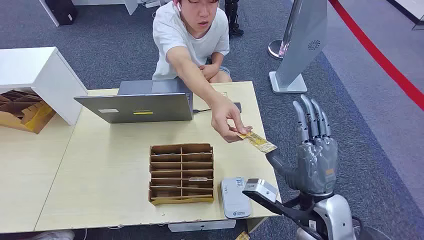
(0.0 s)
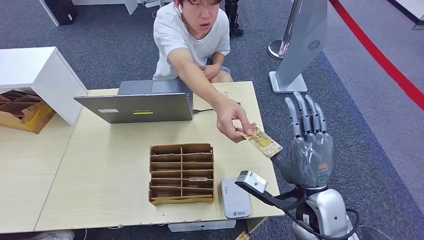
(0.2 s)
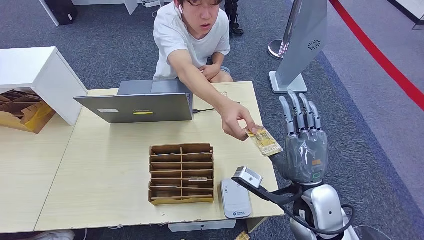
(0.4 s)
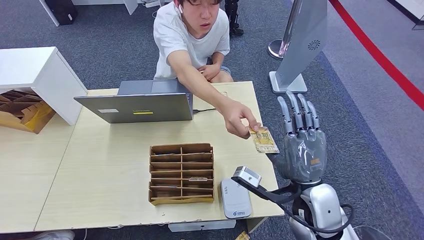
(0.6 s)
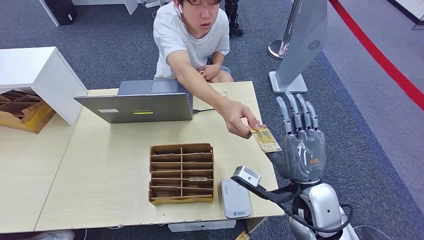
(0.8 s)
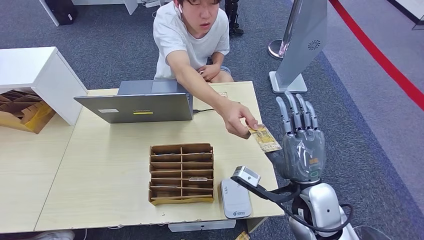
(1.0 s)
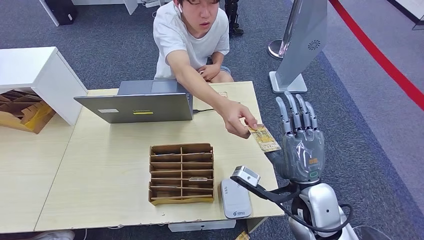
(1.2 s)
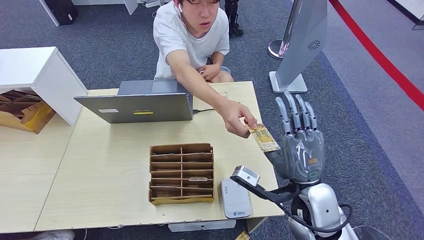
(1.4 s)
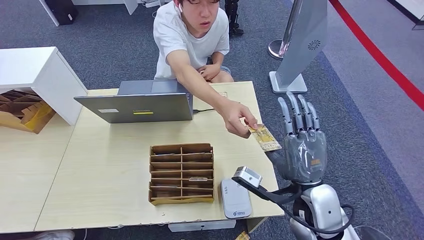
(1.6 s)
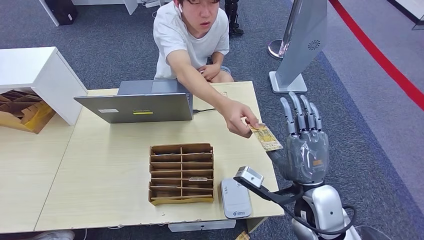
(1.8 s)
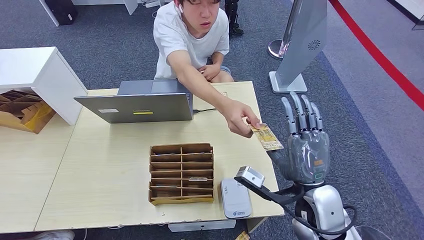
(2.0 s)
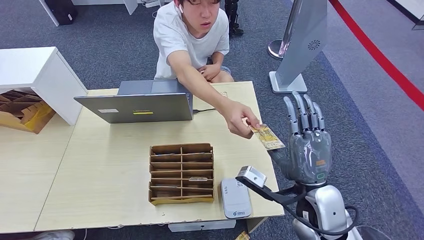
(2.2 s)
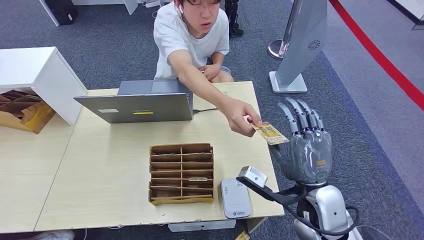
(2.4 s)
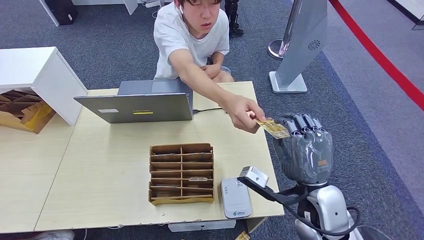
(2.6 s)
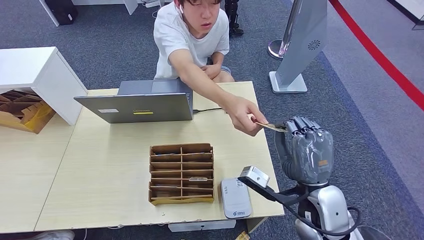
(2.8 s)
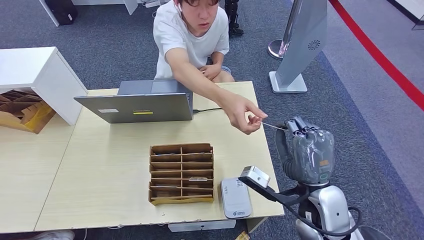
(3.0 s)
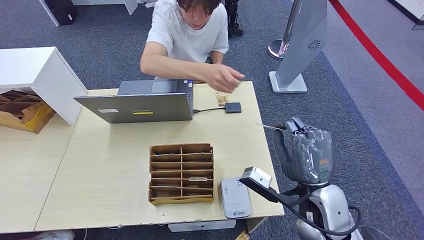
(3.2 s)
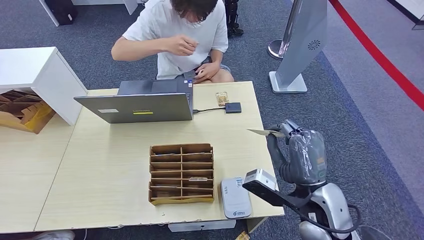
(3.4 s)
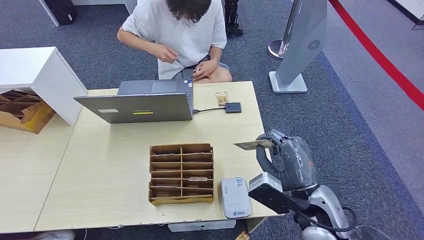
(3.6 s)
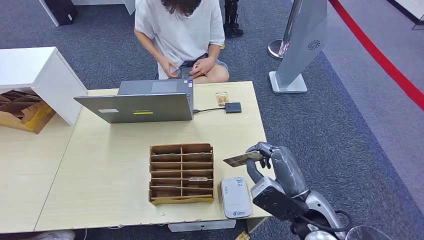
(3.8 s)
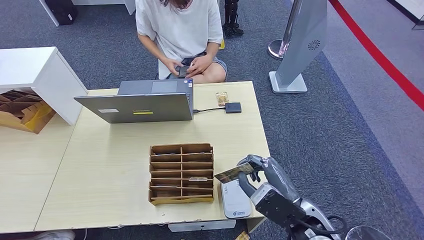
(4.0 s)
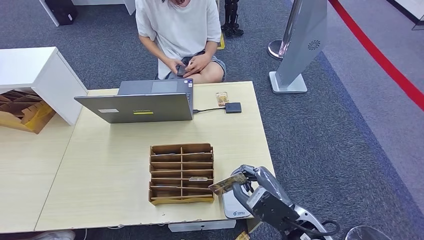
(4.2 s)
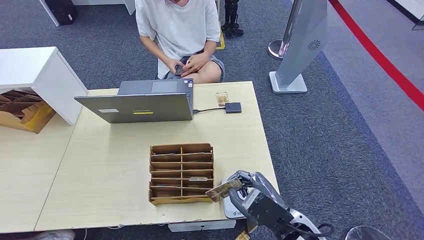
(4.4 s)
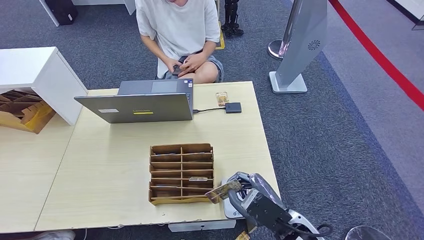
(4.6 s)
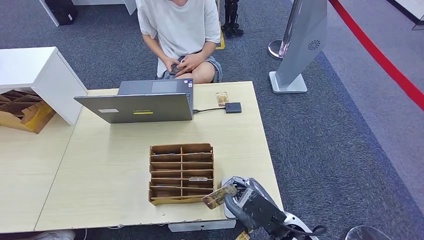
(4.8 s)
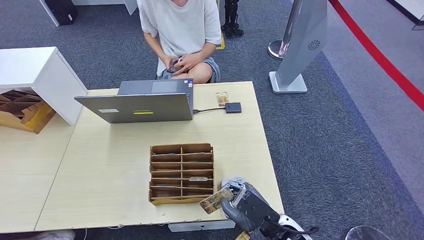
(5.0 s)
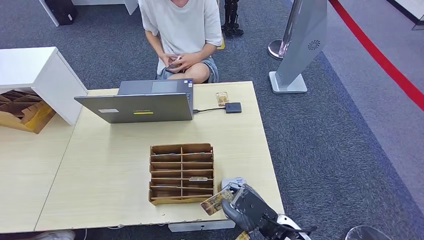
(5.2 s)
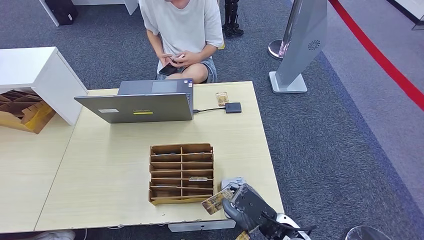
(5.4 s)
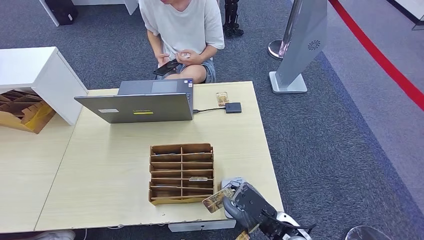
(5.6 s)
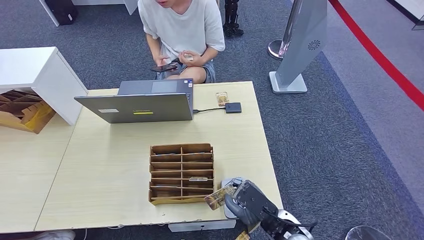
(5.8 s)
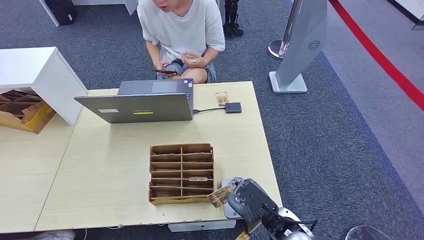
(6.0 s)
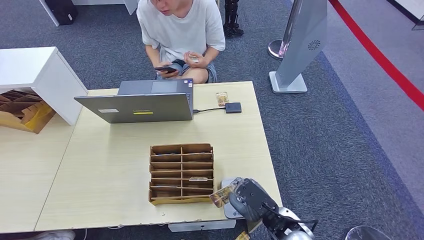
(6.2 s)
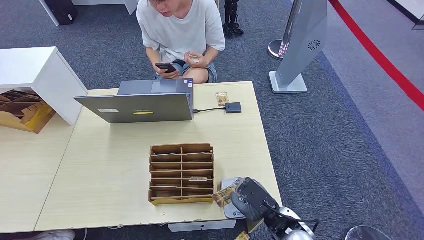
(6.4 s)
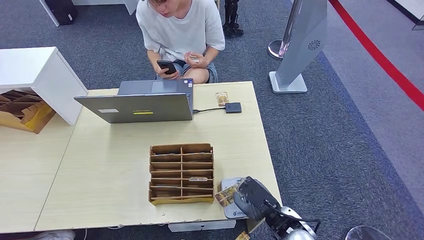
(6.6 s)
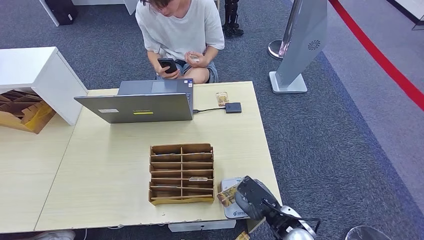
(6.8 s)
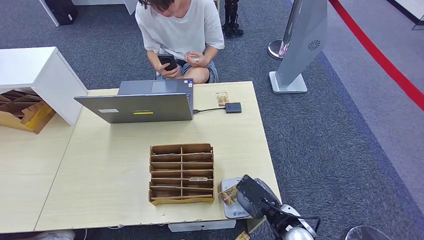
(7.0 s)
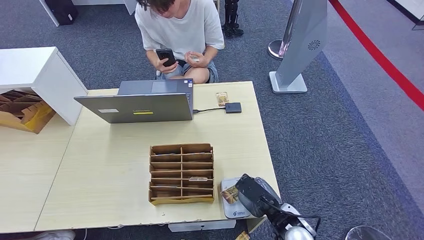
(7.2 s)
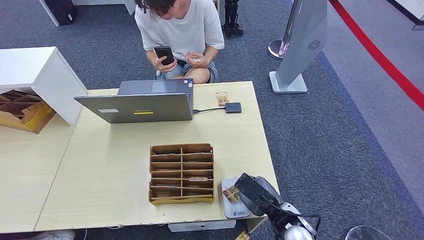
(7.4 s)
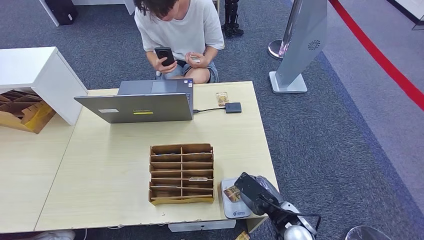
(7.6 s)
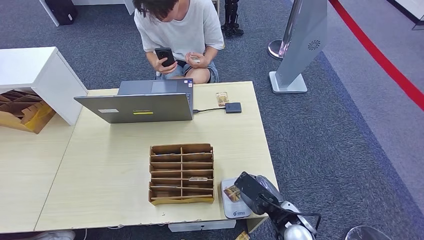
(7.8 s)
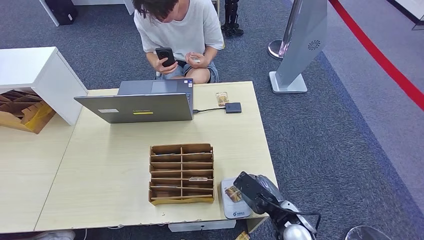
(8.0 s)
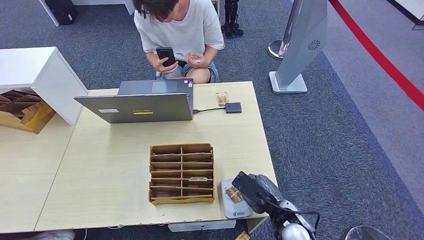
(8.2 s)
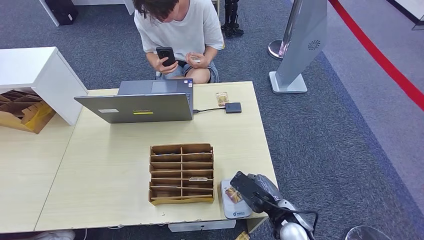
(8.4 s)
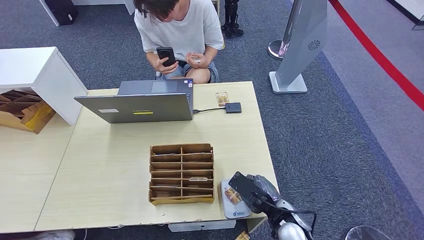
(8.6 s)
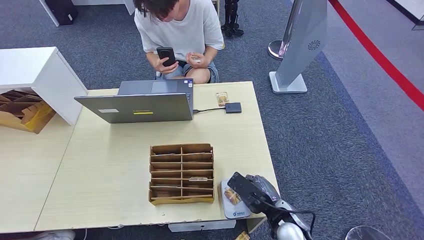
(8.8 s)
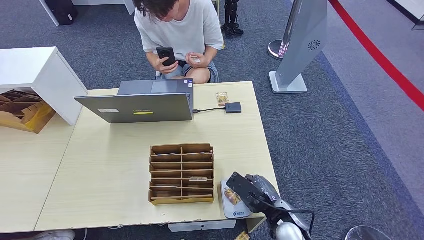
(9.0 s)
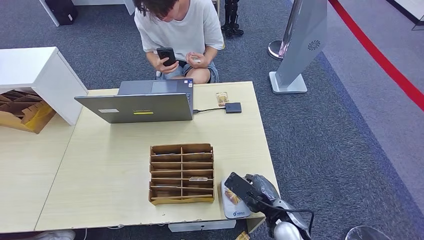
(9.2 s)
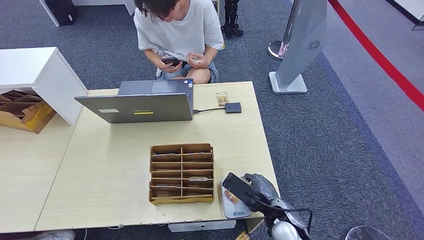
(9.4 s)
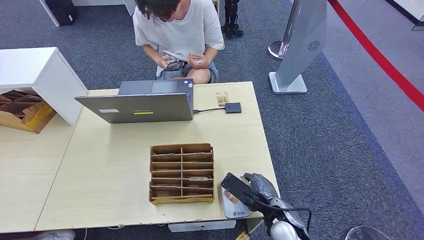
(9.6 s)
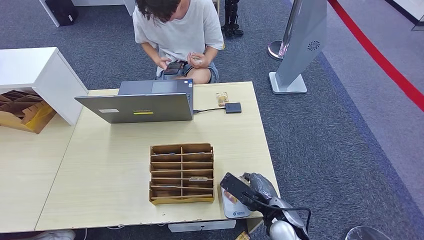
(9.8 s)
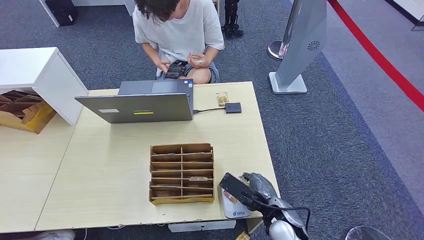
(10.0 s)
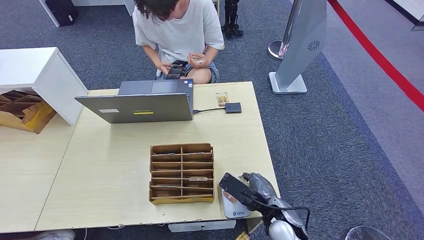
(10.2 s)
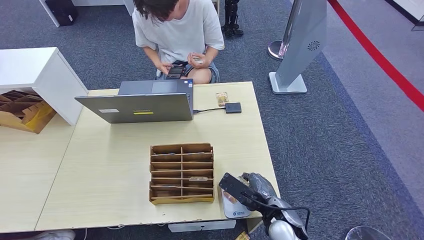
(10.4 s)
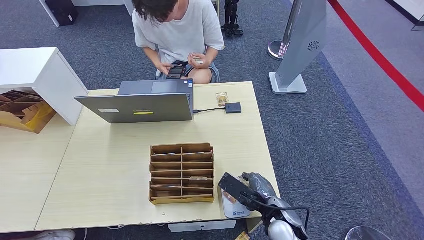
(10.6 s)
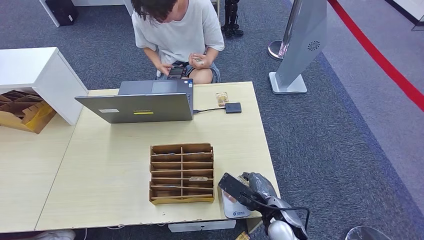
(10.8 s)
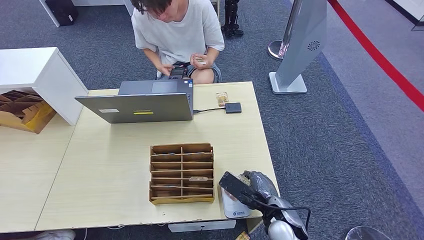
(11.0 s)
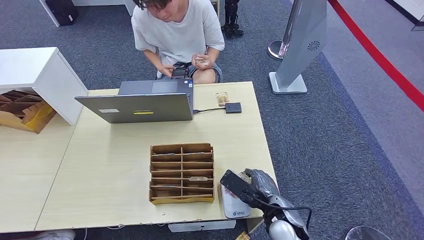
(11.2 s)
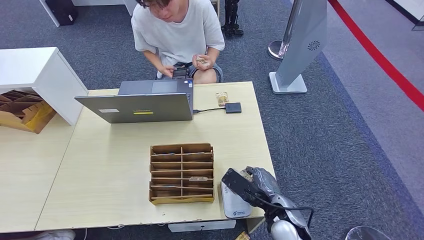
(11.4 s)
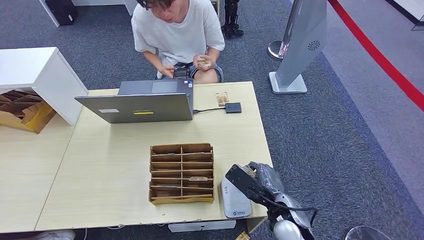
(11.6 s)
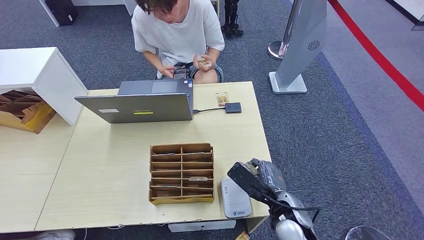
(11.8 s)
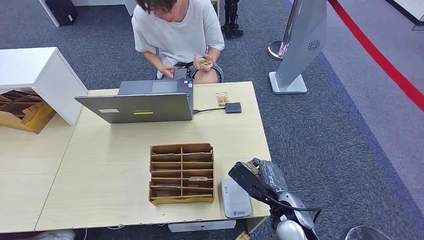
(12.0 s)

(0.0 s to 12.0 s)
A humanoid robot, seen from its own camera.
Step, 0.0 s - 3.4 s: Take the ID card from the person's hand.
Step, 3.8 s - 9.2 s: Place the ID card on the card reader.
1.6 s - 3.0 s: Neither hand changes place.
3.0 s - 4.4 s: The right hand is displaced downward by approximately 5 cm.
4.4 s - 6.0 s: The right hand travels downward by approximately 5 cm.
6.0 s - 7.6 s: The hands stay close to where they were, moving slightly.
7.6 s - 12.0 s: There are only small adjustments of the hands.

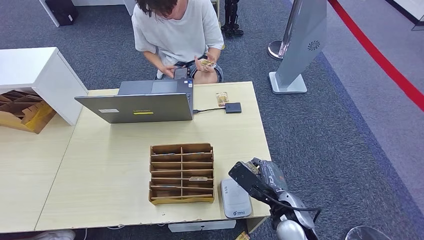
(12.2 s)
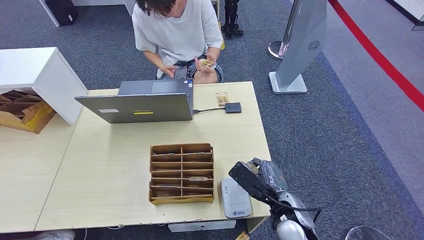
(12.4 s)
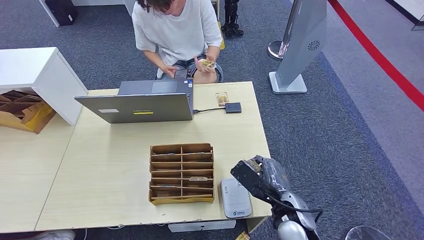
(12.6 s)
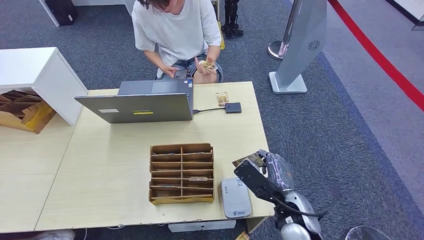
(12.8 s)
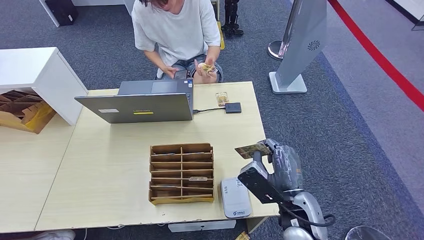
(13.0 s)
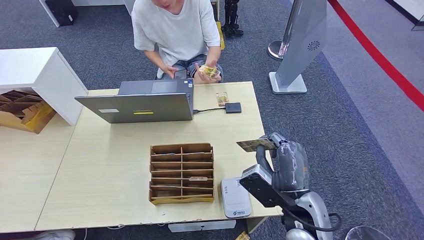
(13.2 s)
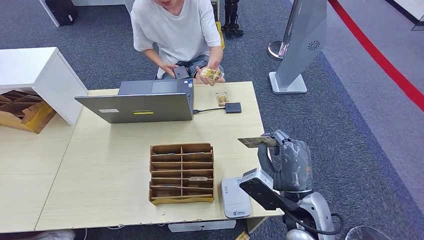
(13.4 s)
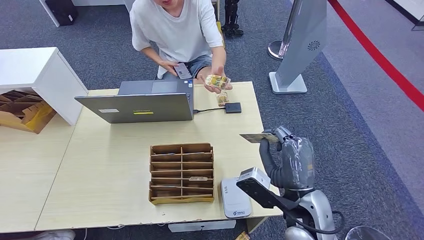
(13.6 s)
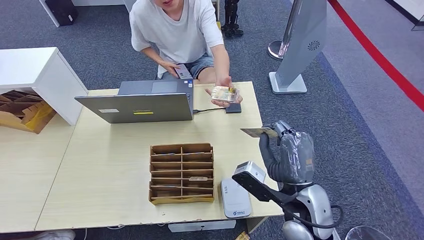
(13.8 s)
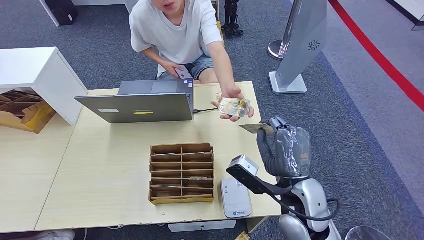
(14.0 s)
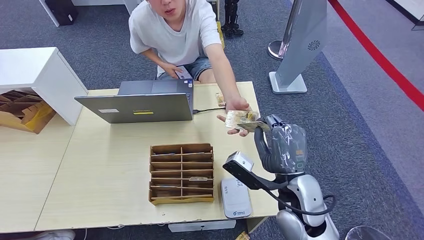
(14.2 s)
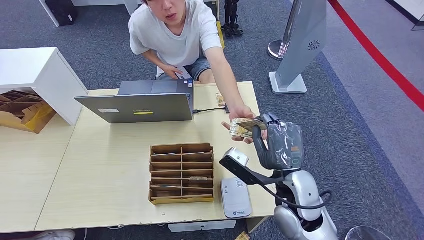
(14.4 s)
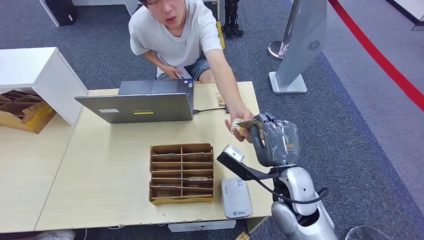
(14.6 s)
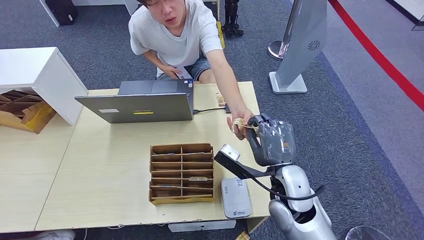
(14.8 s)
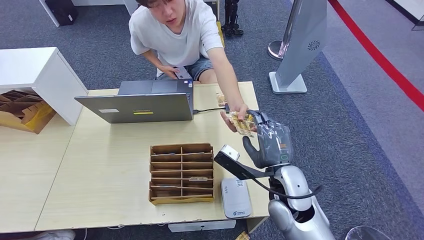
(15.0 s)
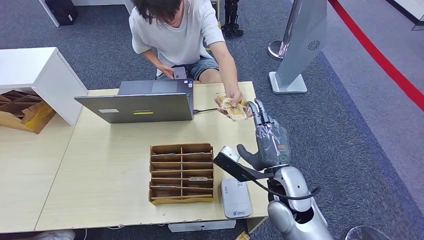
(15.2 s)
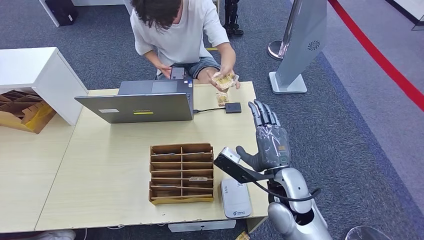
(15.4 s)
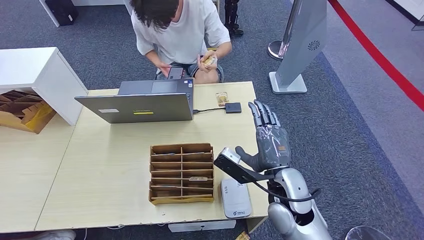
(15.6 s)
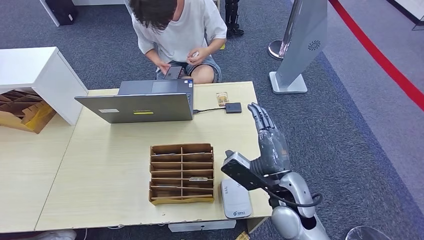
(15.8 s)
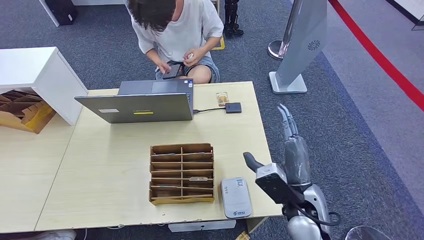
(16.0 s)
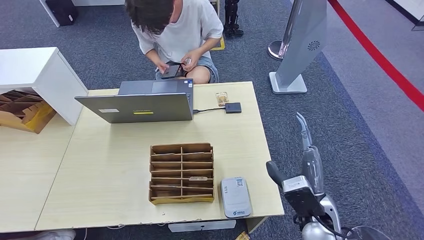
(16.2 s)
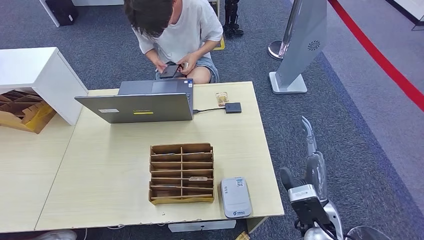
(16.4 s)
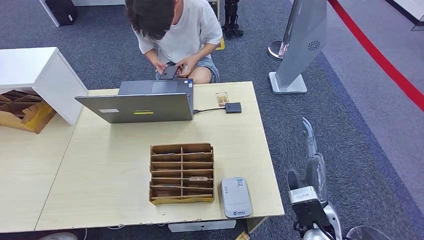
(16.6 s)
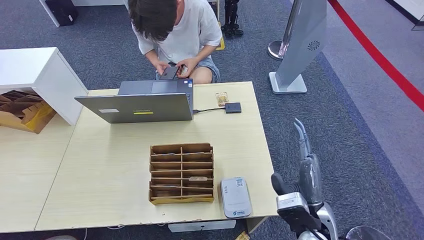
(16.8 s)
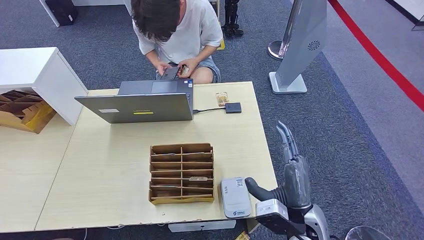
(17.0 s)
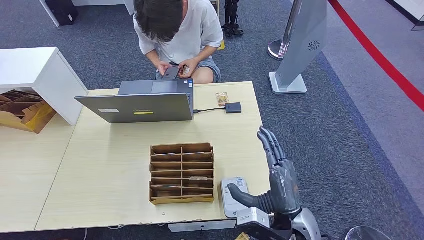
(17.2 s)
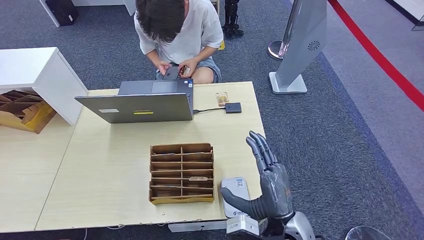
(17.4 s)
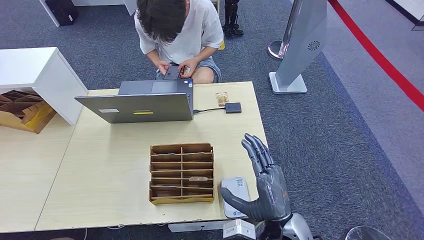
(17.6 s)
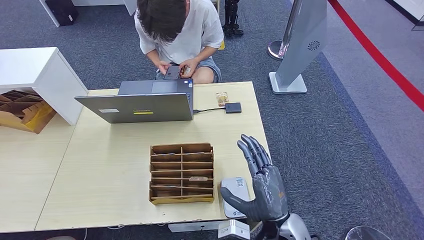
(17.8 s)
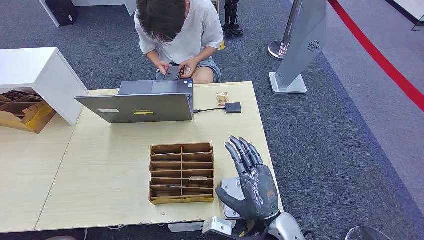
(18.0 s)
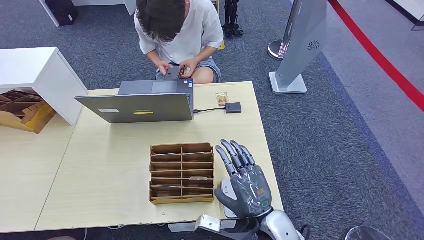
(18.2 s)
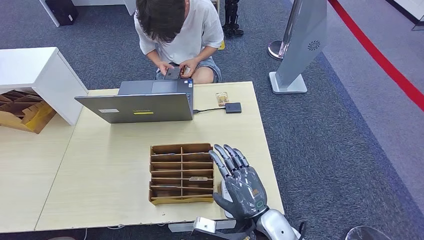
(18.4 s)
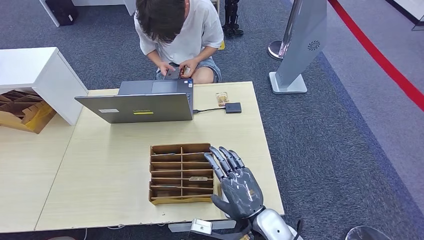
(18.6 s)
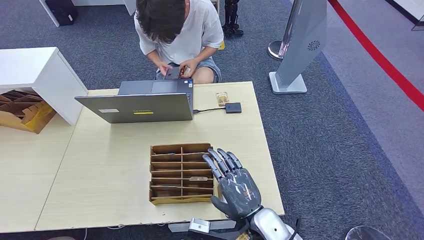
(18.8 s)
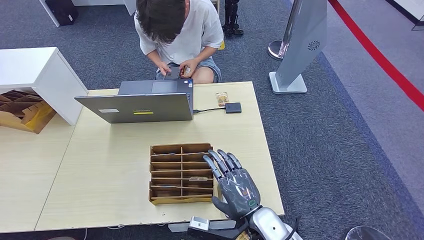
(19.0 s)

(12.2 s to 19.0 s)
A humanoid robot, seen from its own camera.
Step, 12.2 s - 15.4 s: Hand the ID card to the person.
12.2 s - 13.6 s: The right hand heads upward, covering roughly 10 cm.
13.6 s - 15.0 s: The right hand shifts approximately 5 cm forward.
15.0 s - 16.2 s: The right hand is displaced to the right and backward by some 10 cm.
16.2 s - 17.6 s: The right hand shifts some 5 cm to the left.
